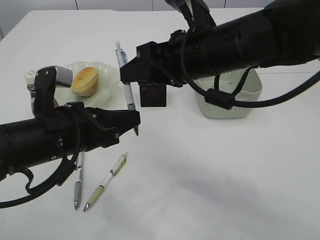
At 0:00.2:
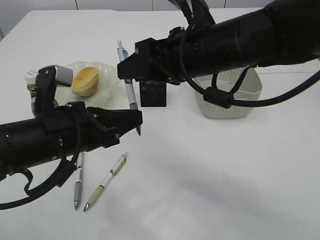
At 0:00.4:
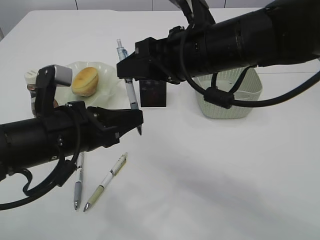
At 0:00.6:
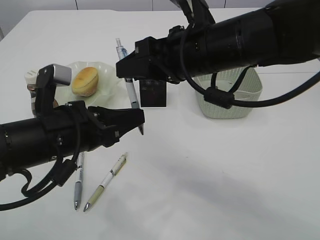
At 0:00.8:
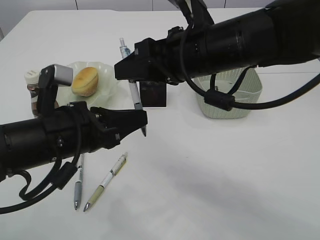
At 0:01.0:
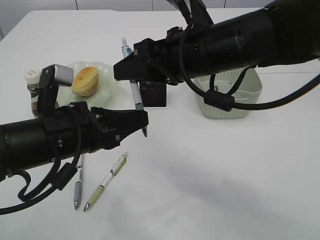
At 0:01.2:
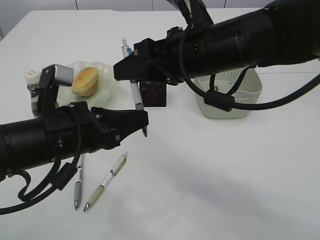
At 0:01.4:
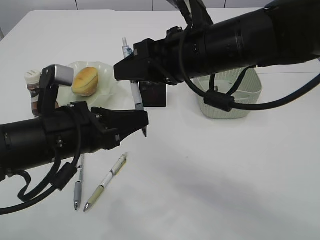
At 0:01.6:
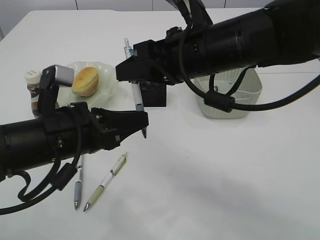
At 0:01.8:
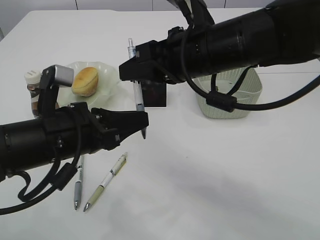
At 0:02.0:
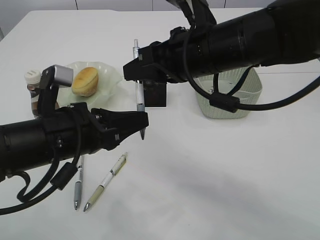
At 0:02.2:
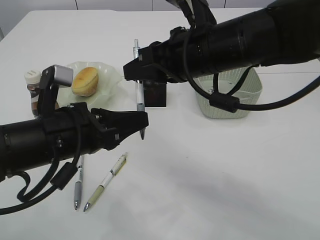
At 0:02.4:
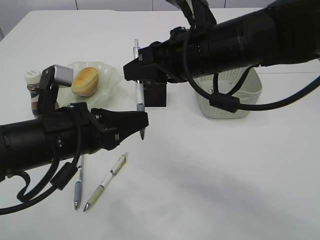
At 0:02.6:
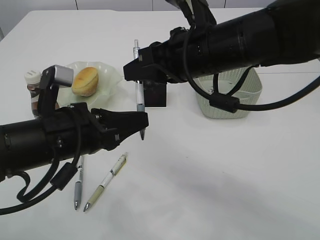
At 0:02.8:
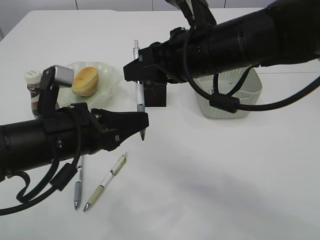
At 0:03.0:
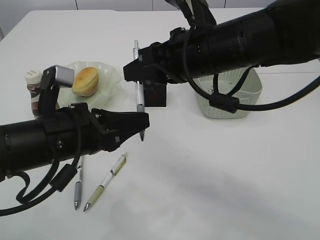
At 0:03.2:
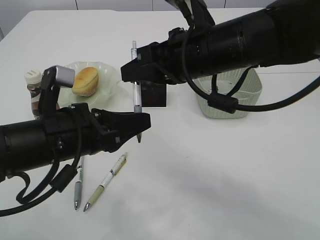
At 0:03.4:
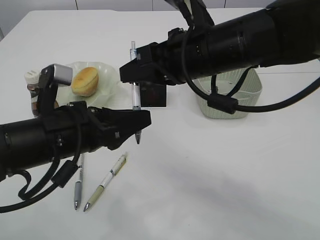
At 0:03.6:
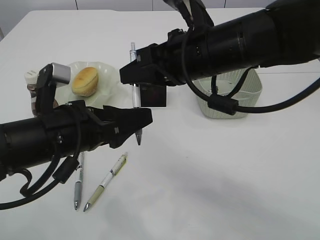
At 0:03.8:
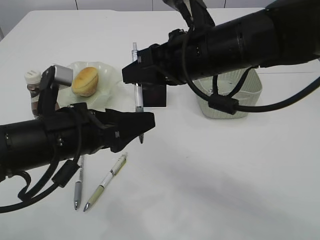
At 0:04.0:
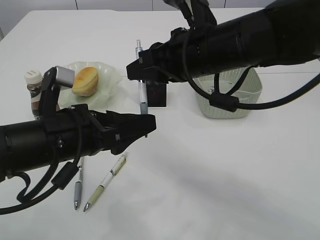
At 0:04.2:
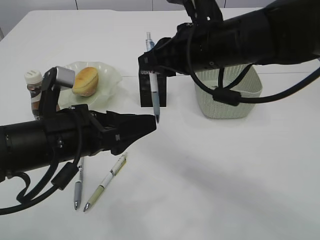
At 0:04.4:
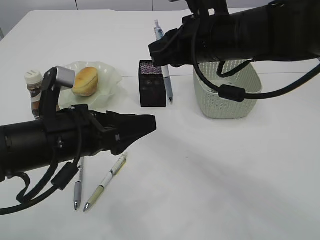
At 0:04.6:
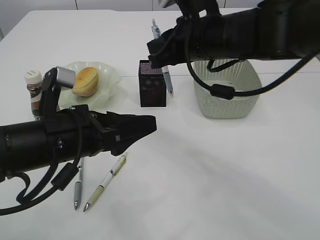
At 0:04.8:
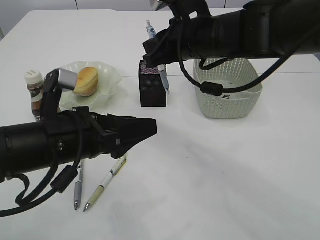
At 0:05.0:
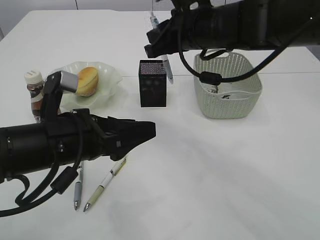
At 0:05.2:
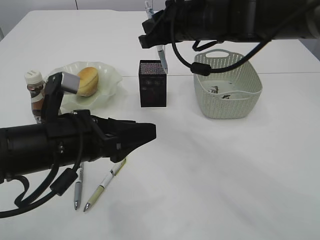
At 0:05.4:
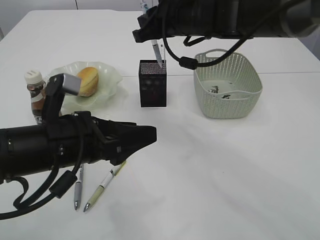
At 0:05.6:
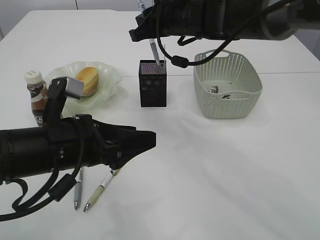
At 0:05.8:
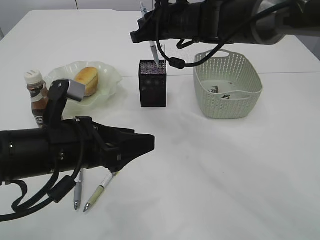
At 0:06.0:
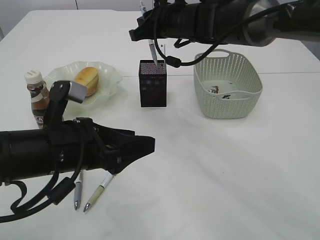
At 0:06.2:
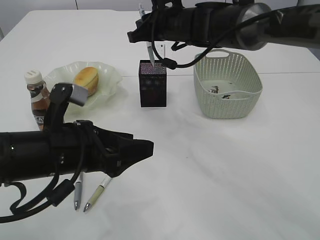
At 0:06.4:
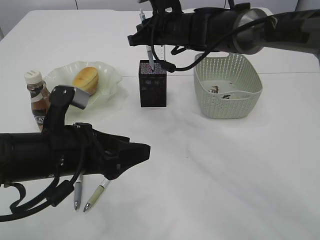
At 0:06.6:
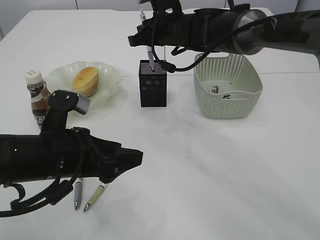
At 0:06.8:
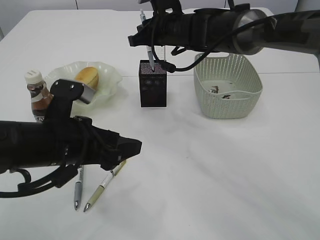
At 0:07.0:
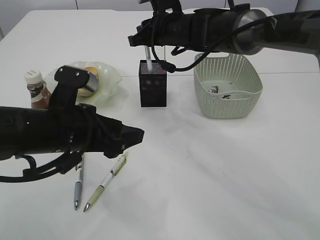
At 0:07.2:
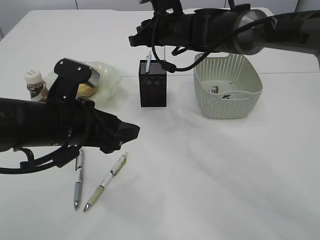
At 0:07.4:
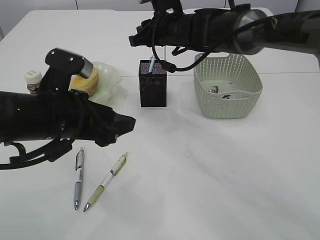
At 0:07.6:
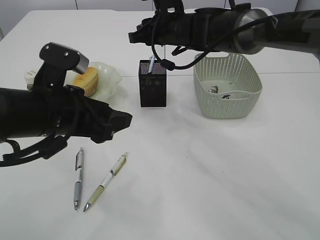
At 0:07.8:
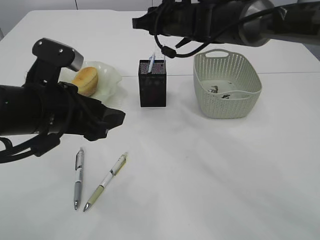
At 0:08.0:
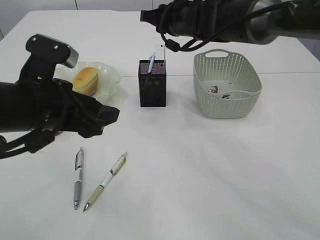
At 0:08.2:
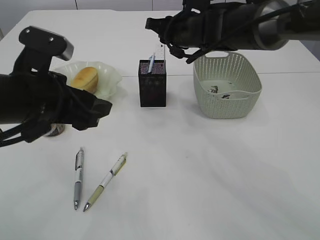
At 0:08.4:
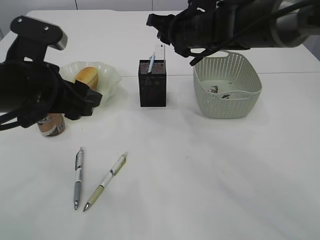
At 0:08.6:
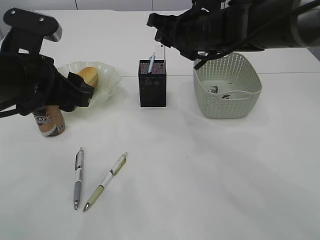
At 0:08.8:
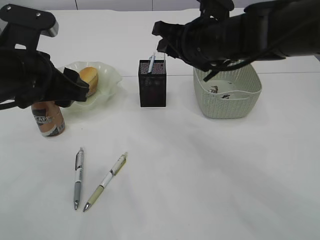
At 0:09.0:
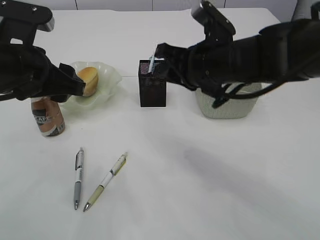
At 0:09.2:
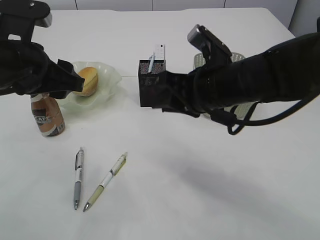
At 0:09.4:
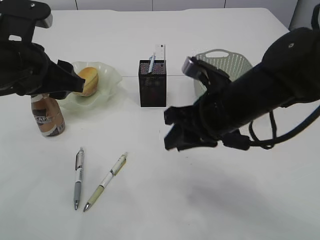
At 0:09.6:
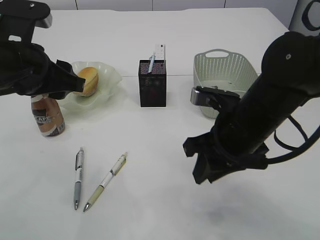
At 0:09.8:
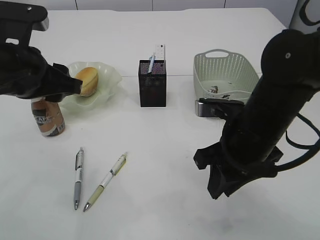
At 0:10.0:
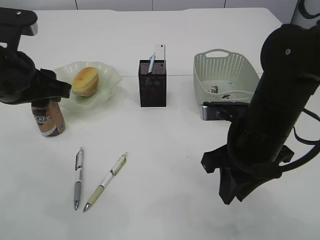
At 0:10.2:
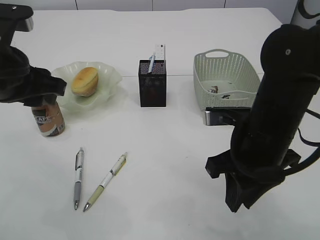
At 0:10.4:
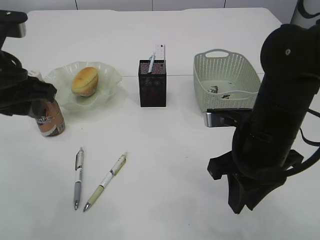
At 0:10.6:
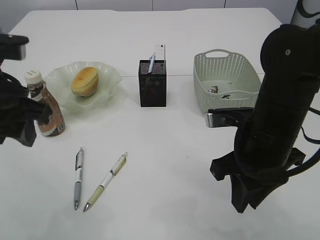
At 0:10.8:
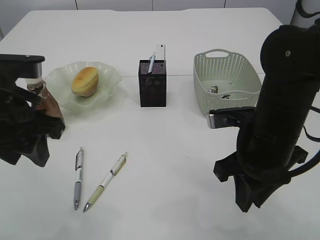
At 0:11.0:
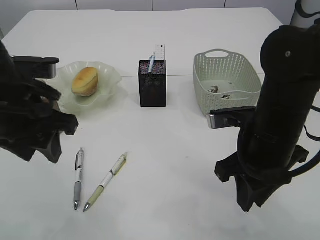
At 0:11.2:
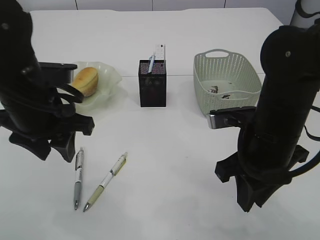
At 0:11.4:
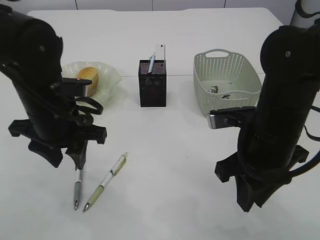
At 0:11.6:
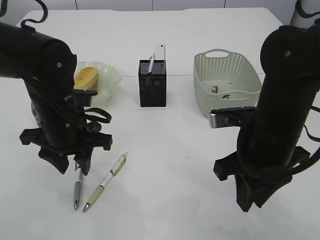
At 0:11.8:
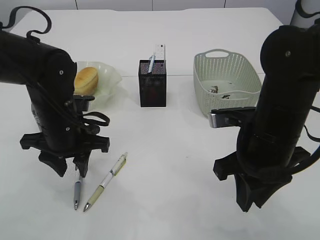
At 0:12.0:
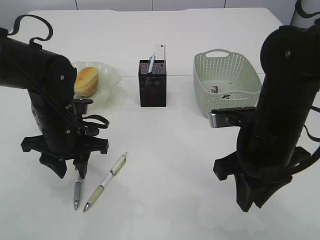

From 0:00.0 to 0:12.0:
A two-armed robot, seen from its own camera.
Step, from 0:00.0 to 0:04.2: transfer the pen to the right arm.
Step, from 0:04.4 to 0:07.8: Place the pen into the pen holder.
From 0:00.0 to 0:01.6: The grippers make only small movements.
From 0:01.6 to 0:03.0: Both grippers stay put.
From 0:03.0 to 0:04.4: The left gripper opens.
From 0:04.4 to 0:06.0: The right gripper moves forward, some 15 cm.
From 0:07.6 to 0:09.0: The right gripper travels backward by some 15 cm. Meanwhile the left gripper shifts approximately 5 cm upward.
From 0:09.0 to 0:10.4: The right gripper is displaced backward by roughly 10 cm.
From 0:10.4 to 0:12.0: The left gripper shifts approximately 15 cm downward and forward.

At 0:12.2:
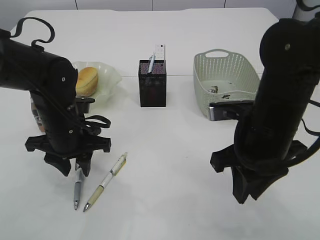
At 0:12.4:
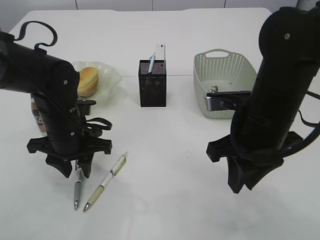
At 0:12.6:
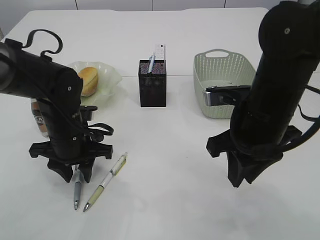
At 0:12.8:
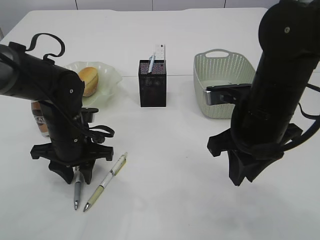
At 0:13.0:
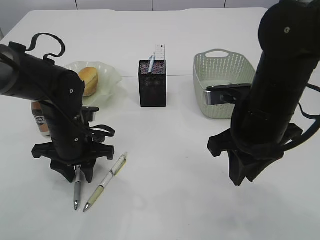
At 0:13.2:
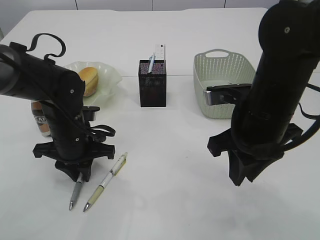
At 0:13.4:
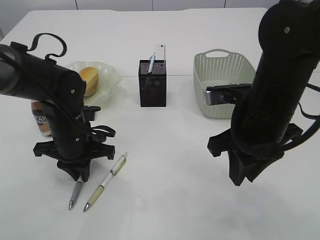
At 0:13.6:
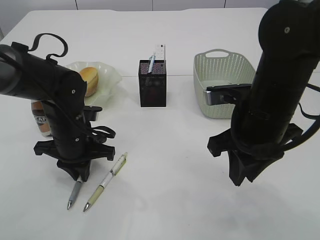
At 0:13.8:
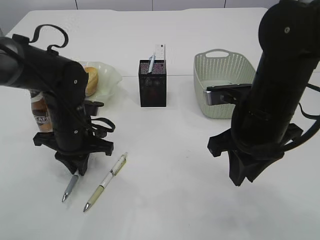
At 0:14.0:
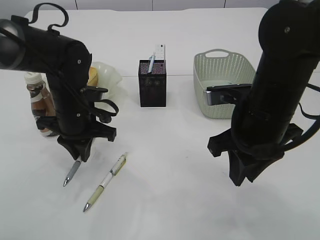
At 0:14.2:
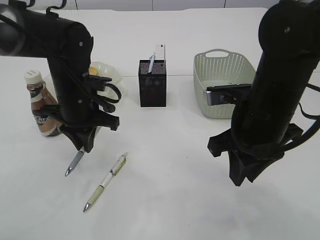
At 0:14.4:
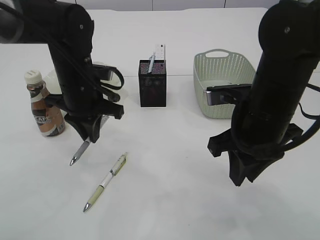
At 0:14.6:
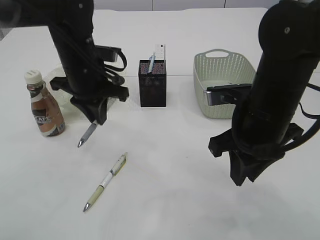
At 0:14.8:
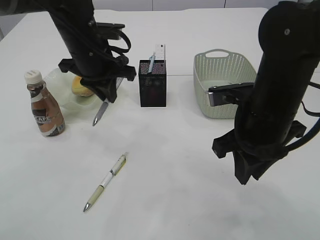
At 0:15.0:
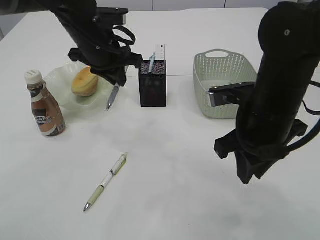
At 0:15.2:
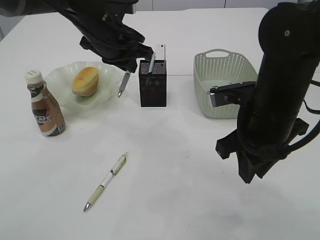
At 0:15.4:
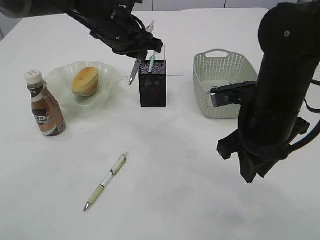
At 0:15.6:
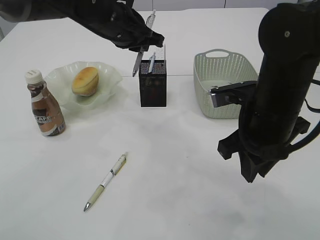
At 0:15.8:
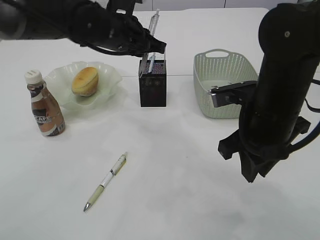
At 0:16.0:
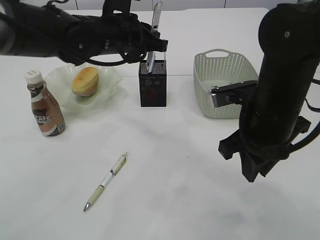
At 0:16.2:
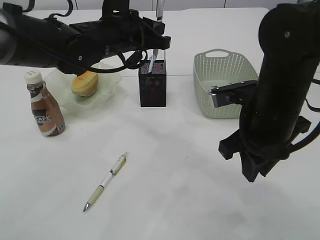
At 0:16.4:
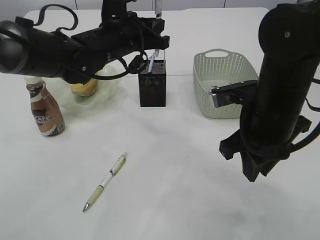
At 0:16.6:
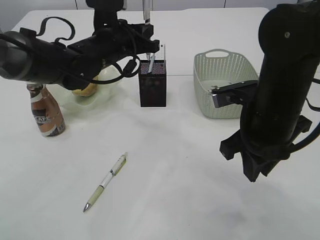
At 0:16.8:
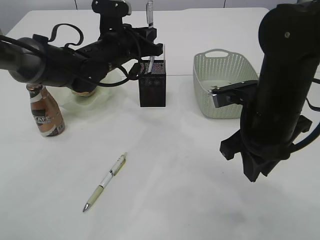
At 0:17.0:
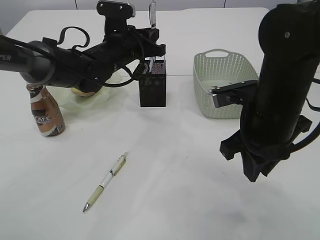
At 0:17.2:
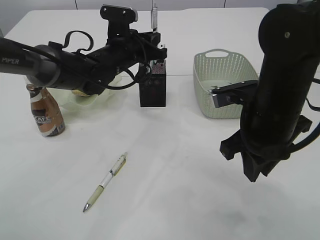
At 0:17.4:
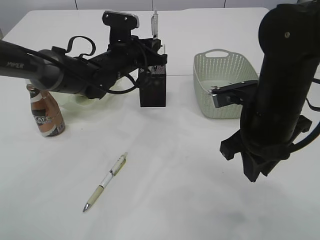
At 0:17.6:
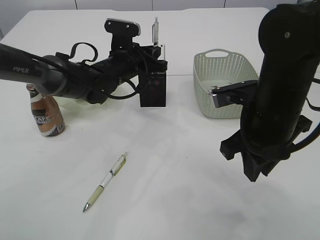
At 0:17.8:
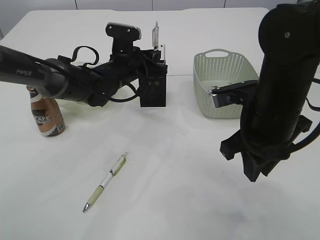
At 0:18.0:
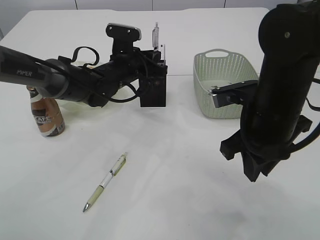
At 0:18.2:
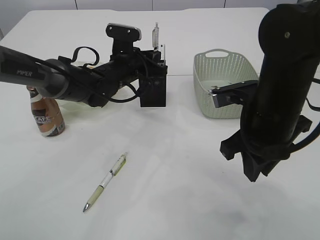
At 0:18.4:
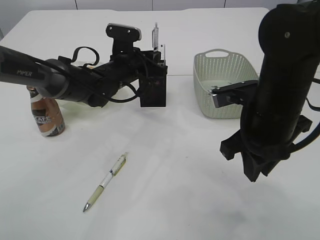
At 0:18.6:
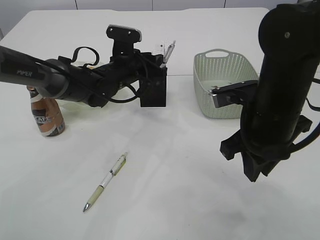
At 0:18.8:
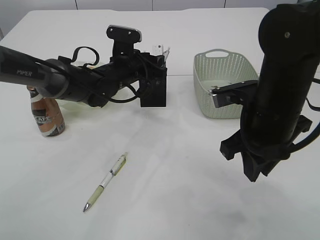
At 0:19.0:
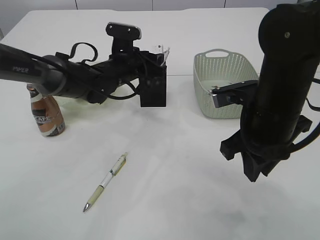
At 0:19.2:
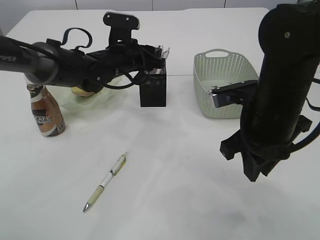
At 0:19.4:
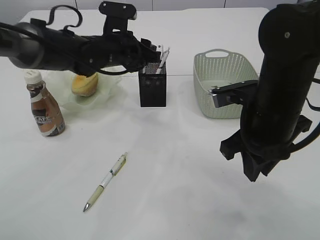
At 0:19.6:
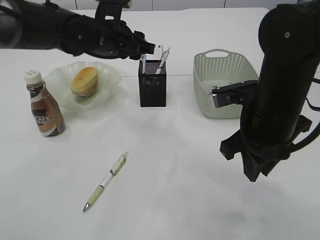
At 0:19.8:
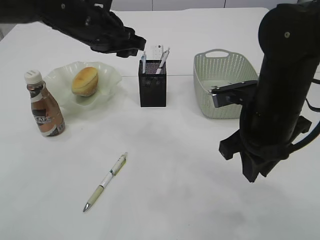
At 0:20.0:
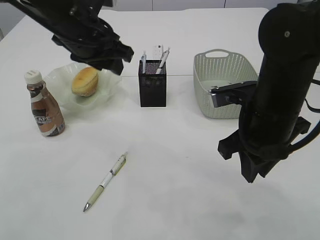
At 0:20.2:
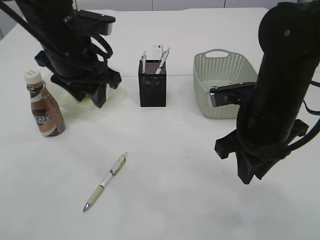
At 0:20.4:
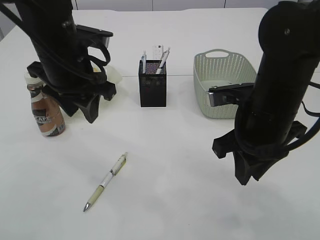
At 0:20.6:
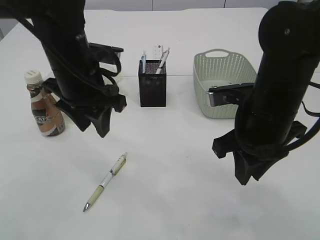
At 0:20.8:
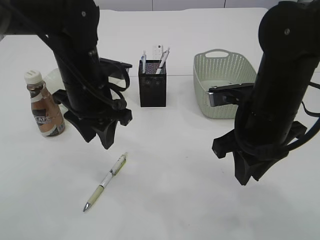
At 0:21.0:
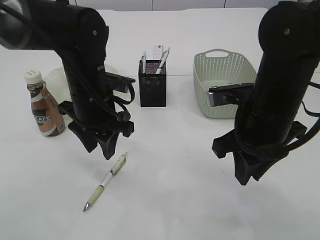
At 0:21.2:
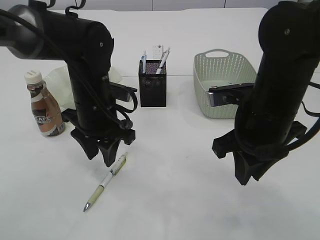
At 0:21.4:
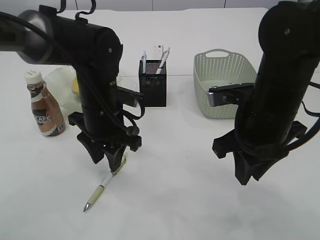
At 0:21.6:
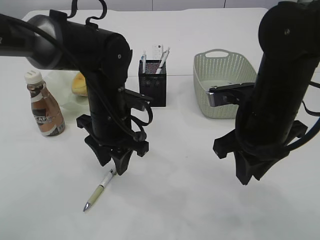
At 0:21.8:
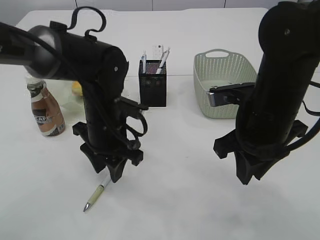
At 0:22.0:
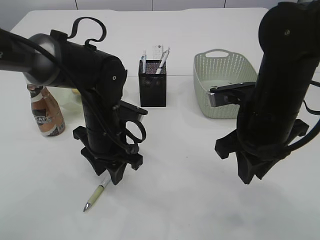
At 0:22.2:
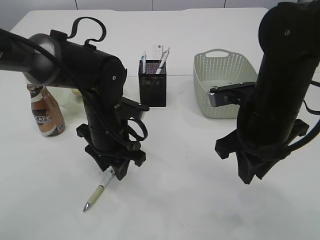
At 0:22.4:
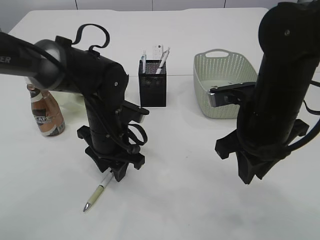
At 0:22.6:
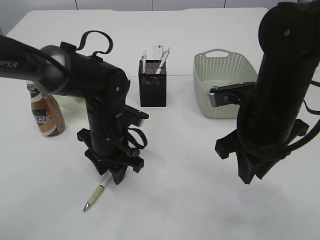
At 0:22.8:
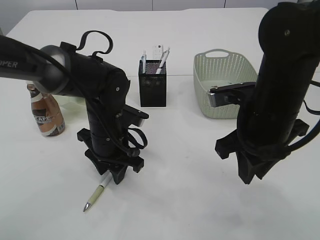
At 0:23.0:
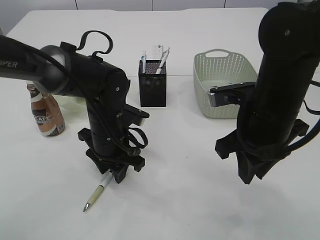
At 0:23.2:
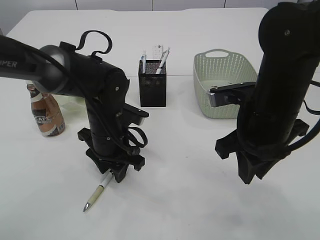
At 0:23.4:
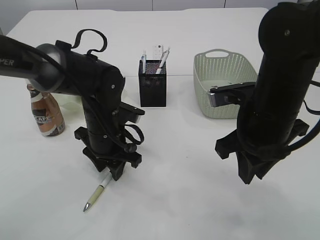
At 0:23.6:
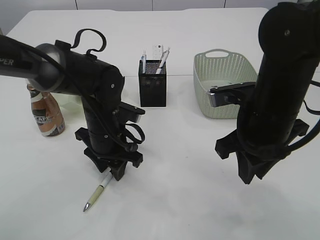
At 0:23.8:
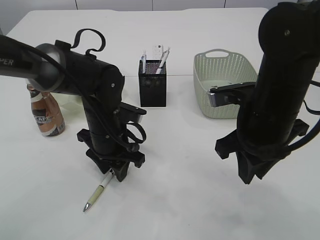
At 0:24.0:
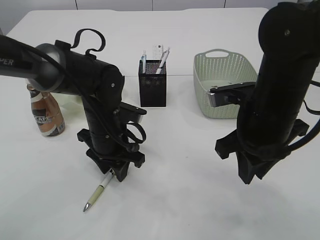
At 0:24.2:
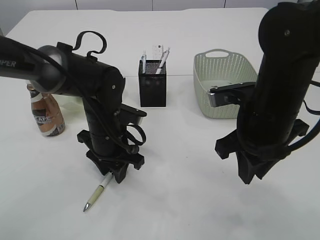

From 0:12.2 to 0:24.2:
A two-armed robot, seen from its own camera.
Step, from 0:12.2 to 0:14.2: Pick up the pen with left arm.
Step, from 0:14.4 to 0:19.6: Place the pen into the pen holder.
From 0:12.2 to 0:13.8: The left gripper closes up.
From 0:13.8 to 0:15.2: The left gripper moves upward, forward and to the right, about 15 cm.
From 0:16.6 to 0:18.2: The left gripper heads downward, covering roughly 5 cm.
From 0:18.2 to 0:19.8: The left gripper travels upward and backward by approximately 15 cm, and opens up.
From 0:19.8 to 0:21.2: The left gripper heads downward and backward, covering about 10 cm.
From 0:21.2 to 0:22.6: The left gripper shifts about 5 cm downward.
From 0:22.6 to 0:24.2: The two grippers keep their place.
